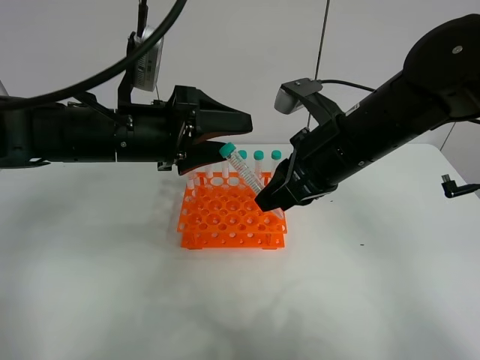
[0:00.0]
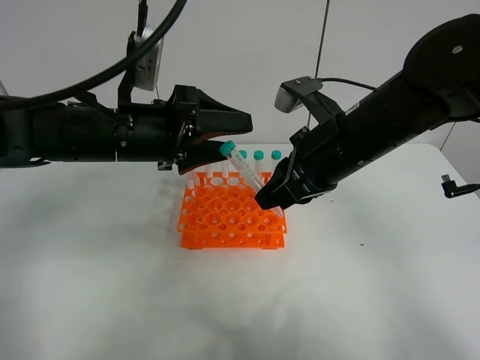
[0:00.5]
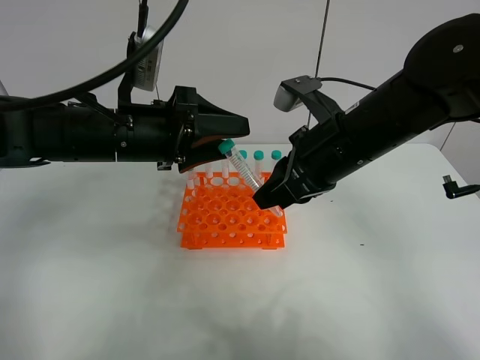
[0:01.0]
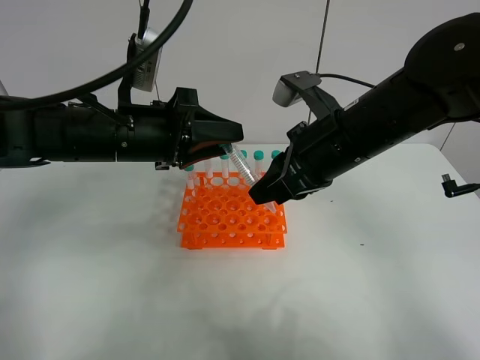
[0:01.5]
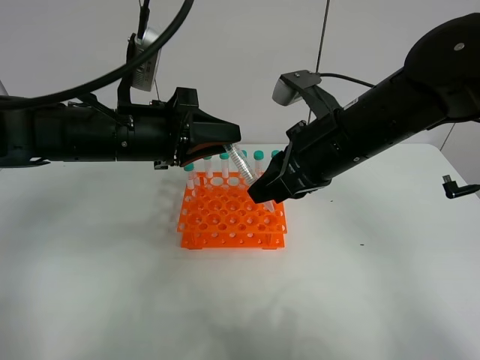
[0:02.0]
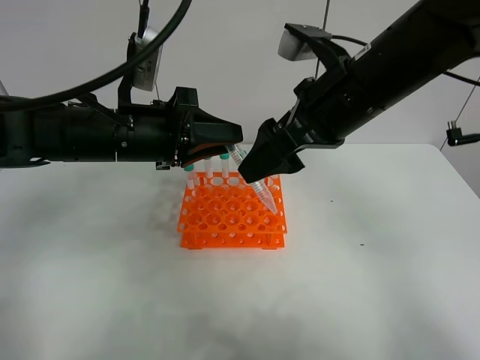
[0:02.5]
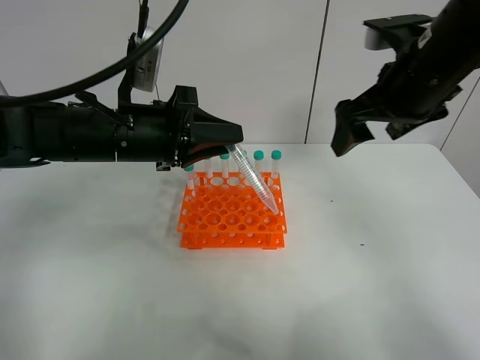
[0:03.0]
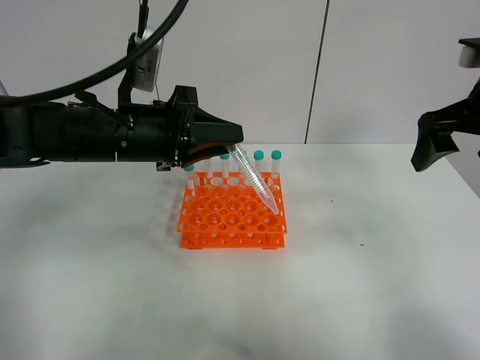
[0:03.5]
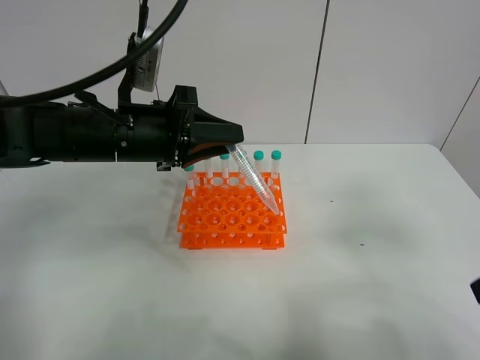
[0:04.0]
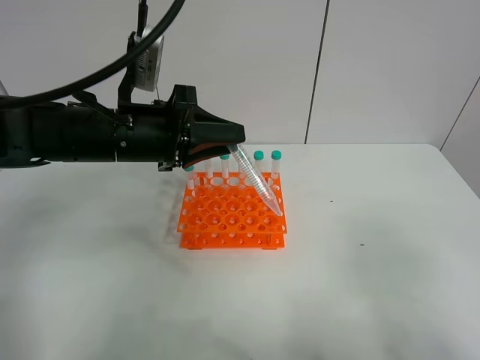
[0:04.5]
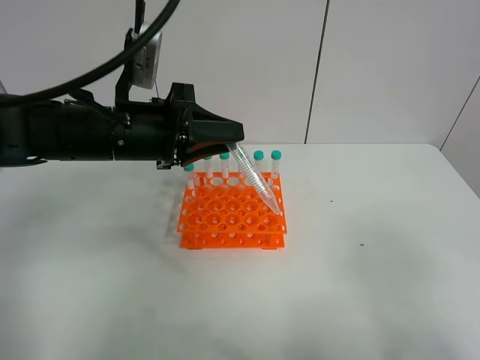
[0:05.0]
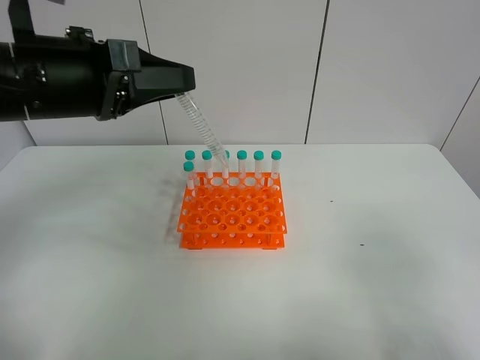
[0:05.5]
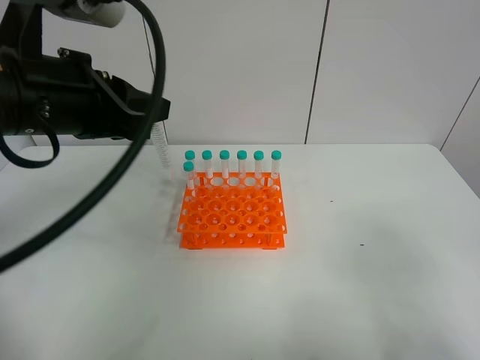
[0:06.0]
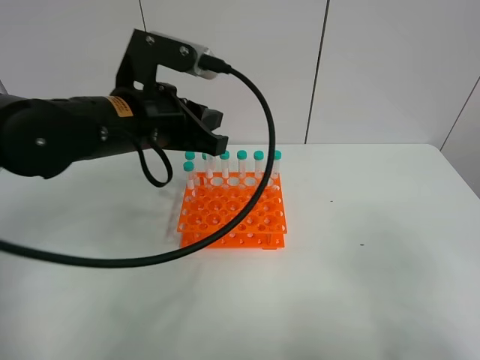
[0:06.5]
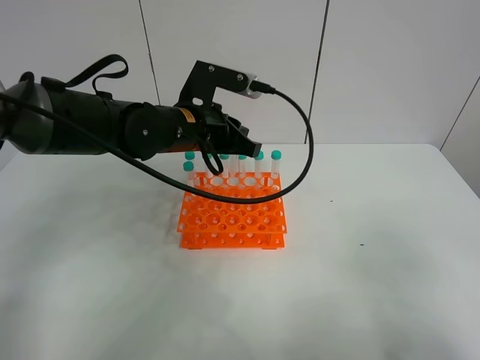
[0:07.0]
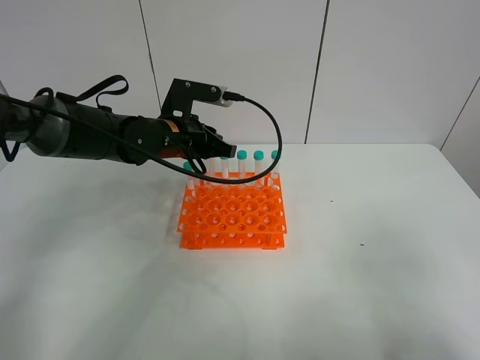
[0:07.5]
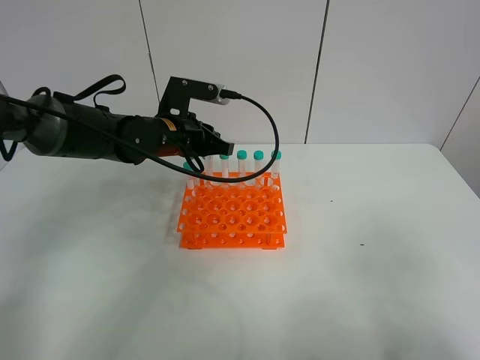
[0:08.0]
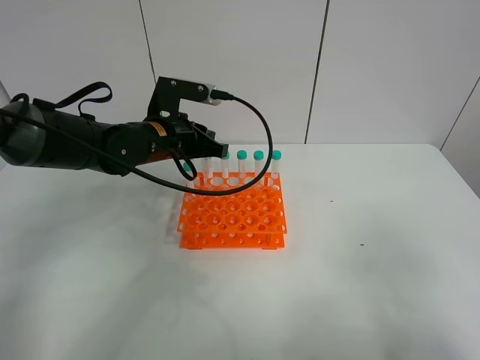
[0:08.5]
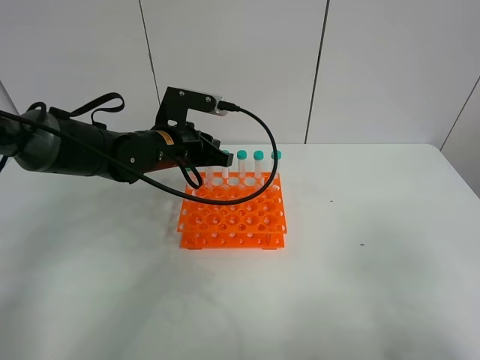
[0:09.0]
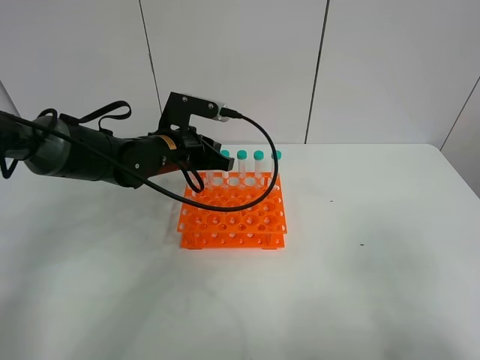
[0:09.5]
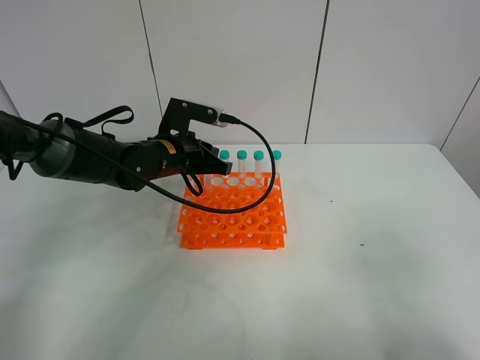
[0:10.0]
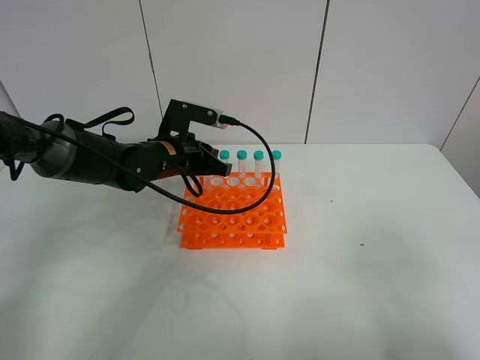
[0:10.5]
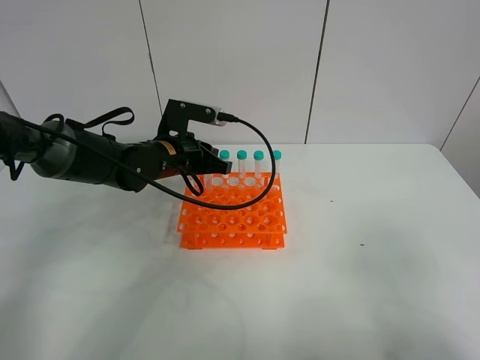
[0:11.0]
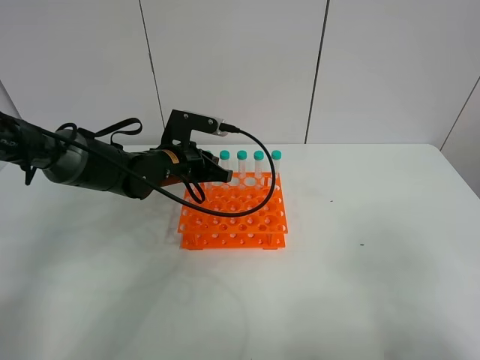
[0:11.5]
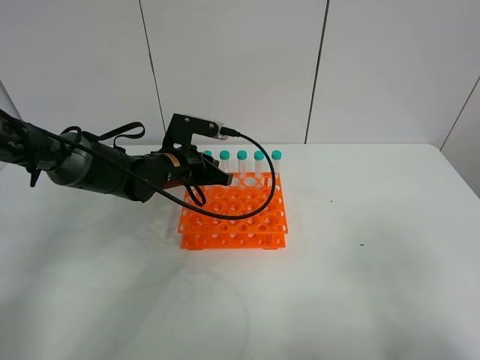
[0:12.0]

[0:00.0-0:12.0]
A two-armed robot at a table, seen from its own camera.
Task of the whole recording: Put the test tube on the table back onto the test tube rack.
Step, 0:00.0 to 0:02.5: Move the test tube from the right gripper to the left gripper.
0:00.0 to 0:02.0: The left gripper closes up.
0:02.0 to 0:04.0: The right gripper heads to the right and backward, covering about 25 cm, and opens.
0:04.0 to 0:06.0: The right gripper heads backward, covering roughly 10 cm, while the left gripper is displaced upward and backward by roughly 10 cm.
0:06.0 to 0:08.0: The left gripper shifts roughly 20 cm forward and downward.
0:08.0 to 0:10.0: The grippers stay close to where they were, moving slightly.
0:10.0 to 0:12.0: The grippers stay close to where they were, moving slightly.

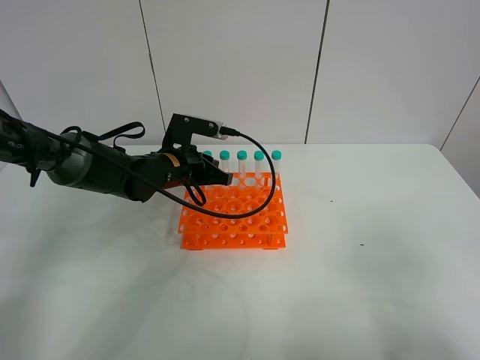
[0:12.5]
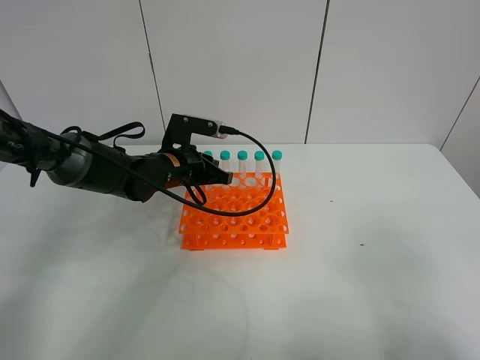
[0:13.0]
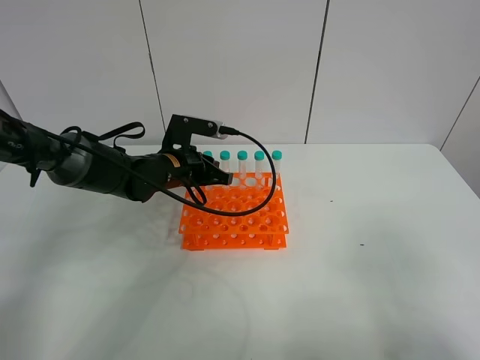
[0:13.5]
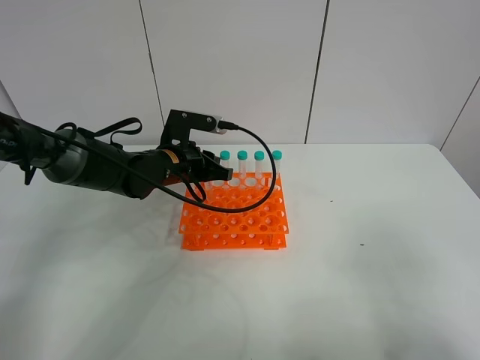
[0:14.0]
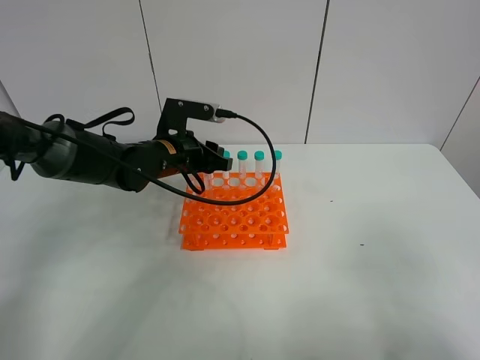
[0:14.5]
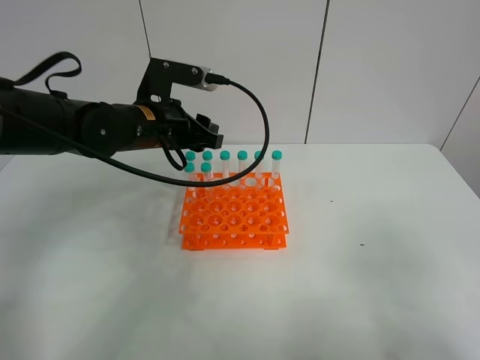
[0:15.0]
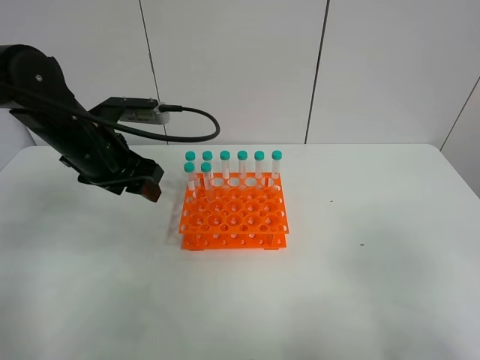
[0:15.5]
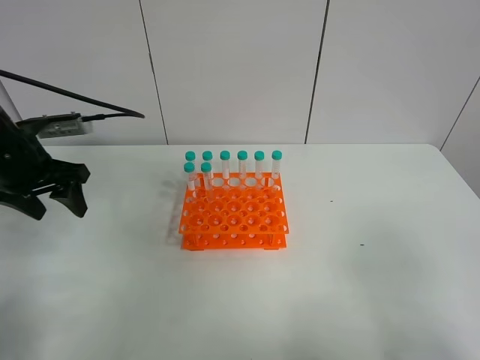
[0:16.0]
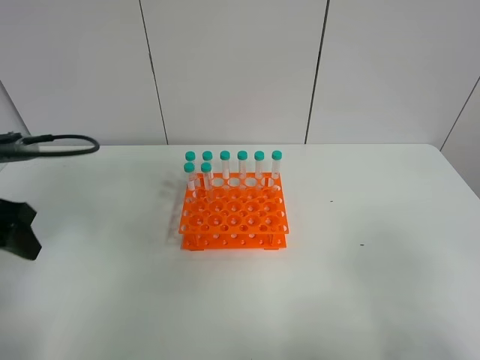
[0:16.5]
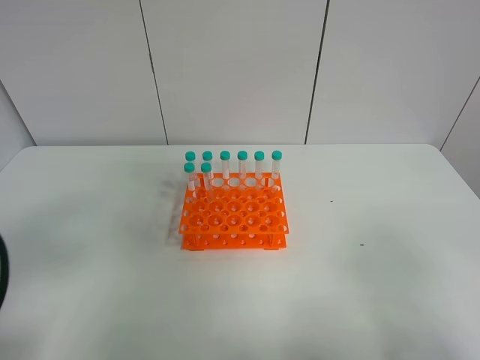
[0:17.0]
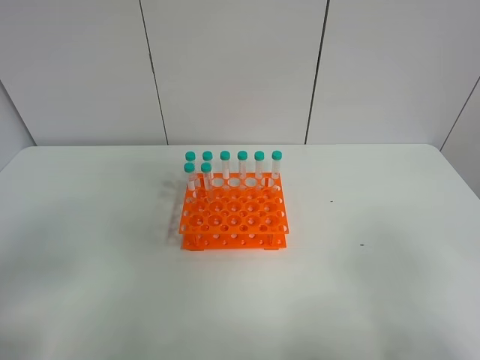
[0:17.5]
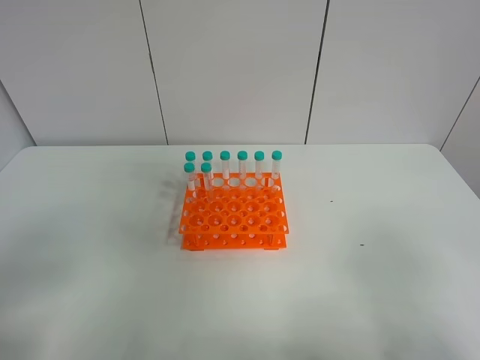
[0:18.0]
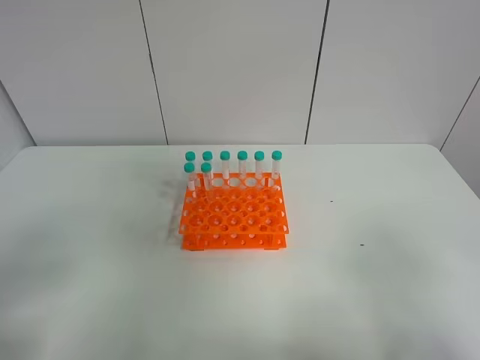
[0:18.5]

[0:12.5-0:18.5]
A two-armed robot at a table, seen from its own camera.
Task of the whole recording: Put the test tube on the table back onto the test tube rack.
Step, 0:12.5 to 0:15.0: Place the test tube on the test tube rack with the left gripper.
0:12.5 to 0:14.5: The left gripper opens up.
0:14.5 to 0:16.5: The left gripper heads to the left and backward, covering about 25 cm.
0:16.5 to 0:18.5: The left gripper heads backward, covering some 20 cm.
